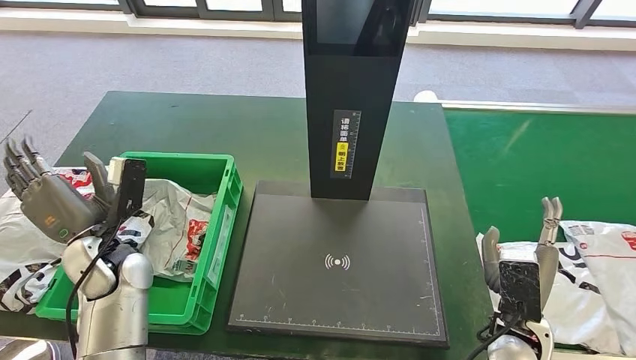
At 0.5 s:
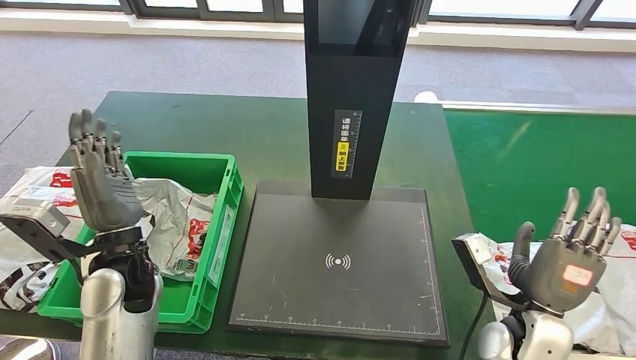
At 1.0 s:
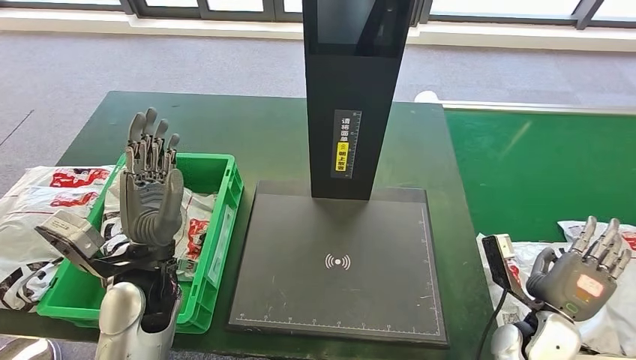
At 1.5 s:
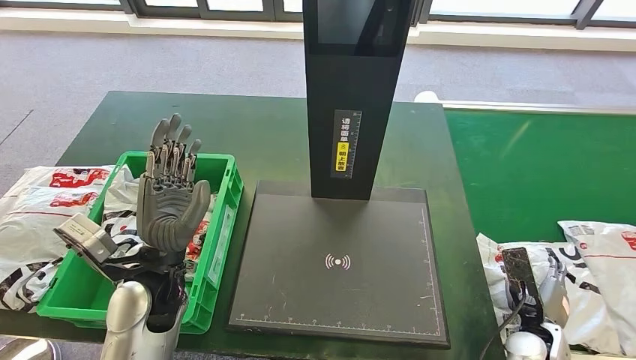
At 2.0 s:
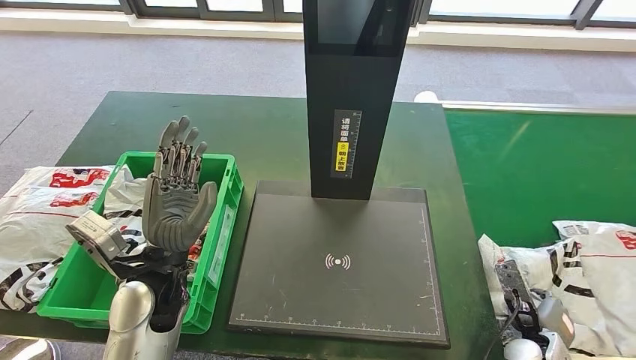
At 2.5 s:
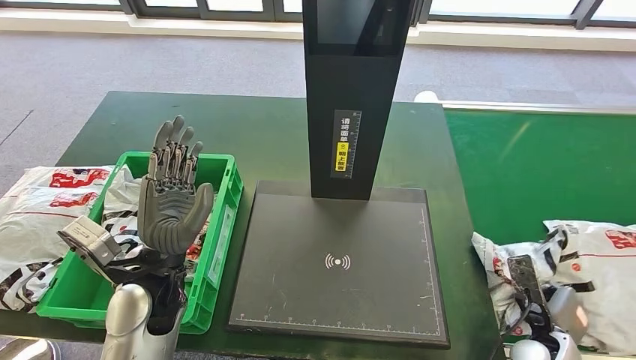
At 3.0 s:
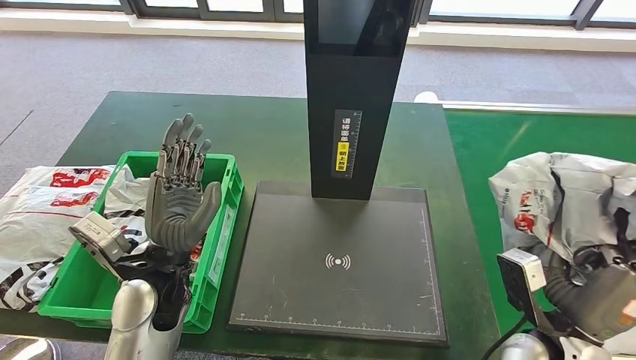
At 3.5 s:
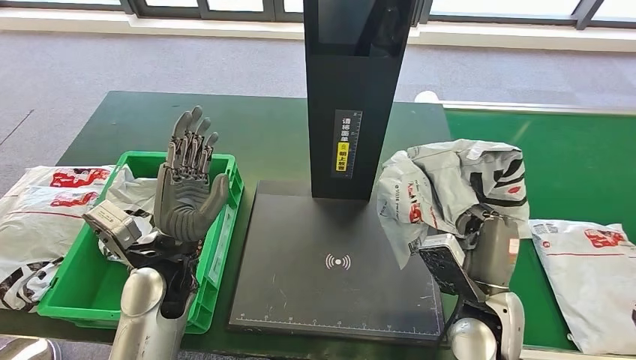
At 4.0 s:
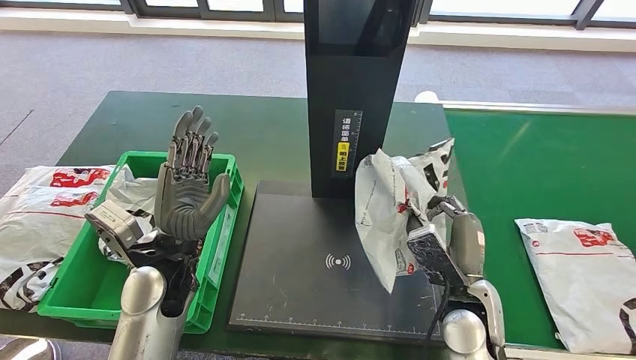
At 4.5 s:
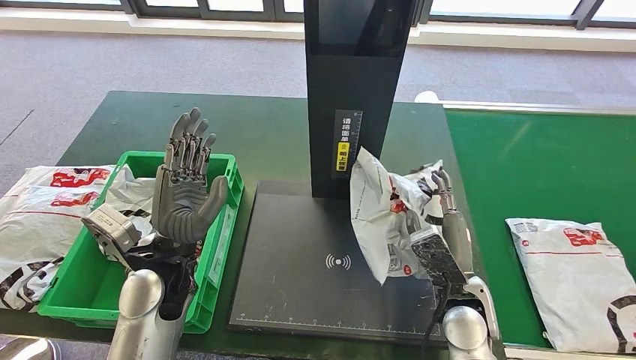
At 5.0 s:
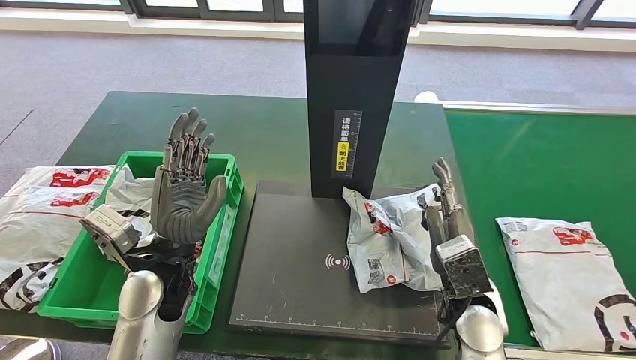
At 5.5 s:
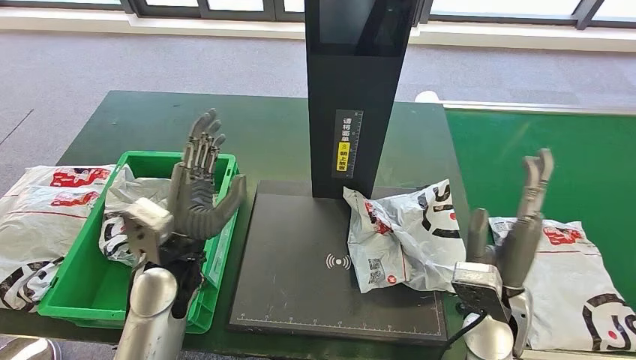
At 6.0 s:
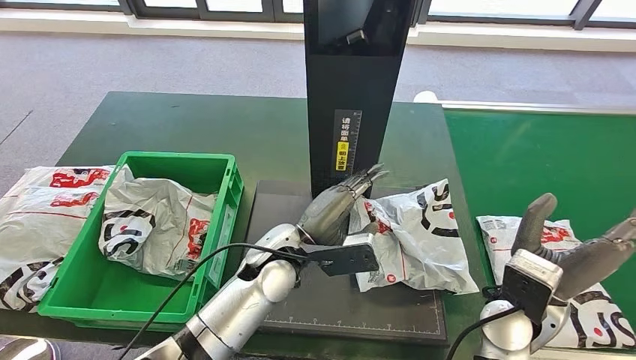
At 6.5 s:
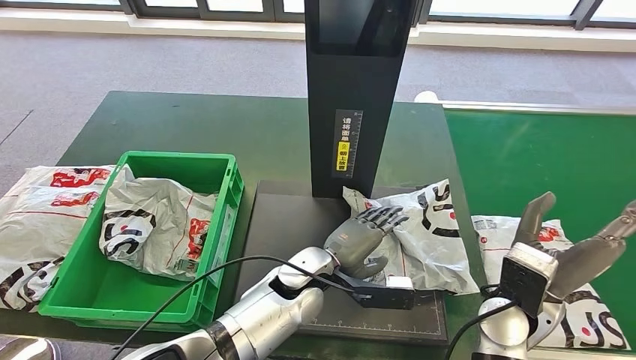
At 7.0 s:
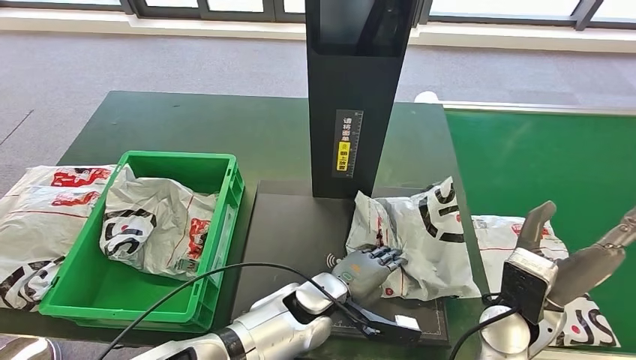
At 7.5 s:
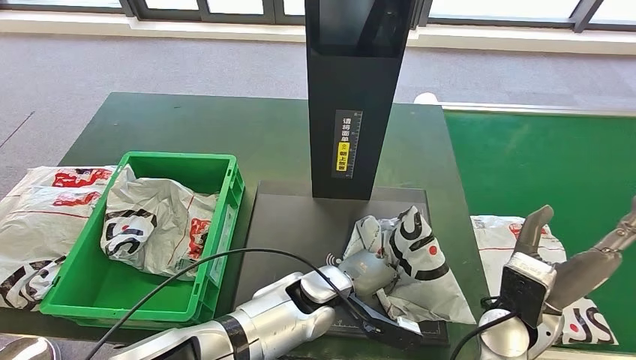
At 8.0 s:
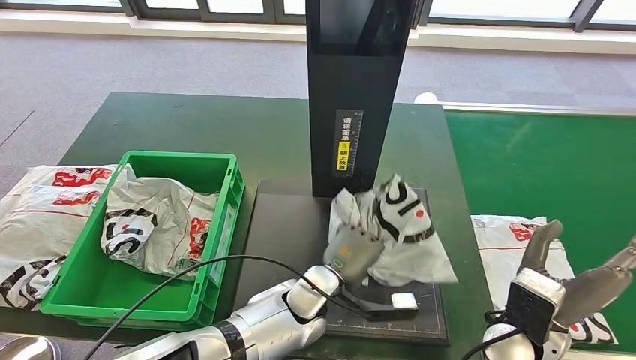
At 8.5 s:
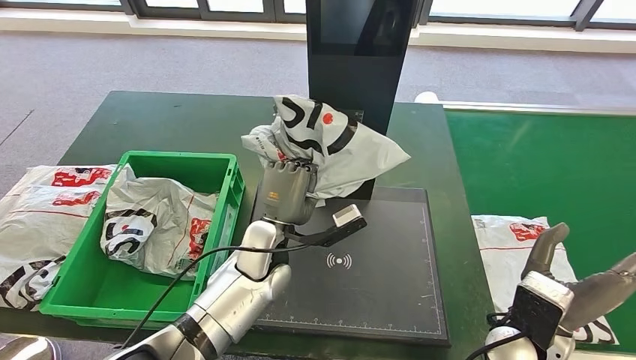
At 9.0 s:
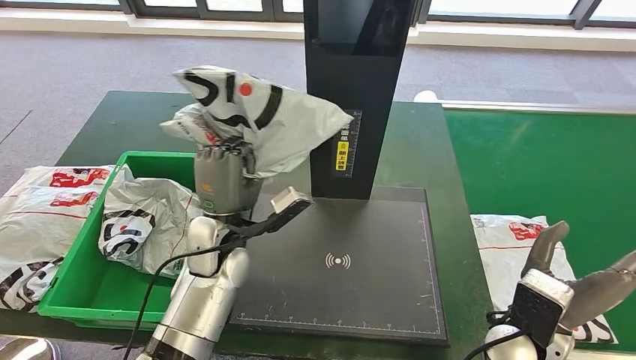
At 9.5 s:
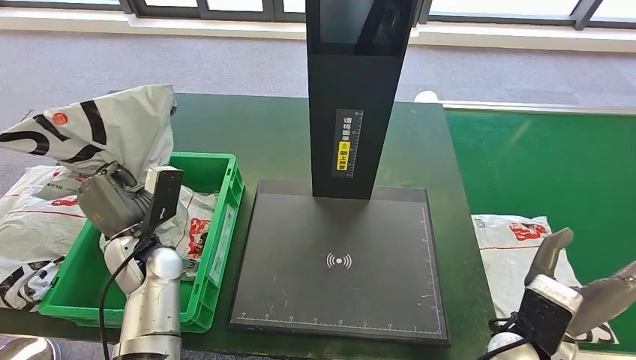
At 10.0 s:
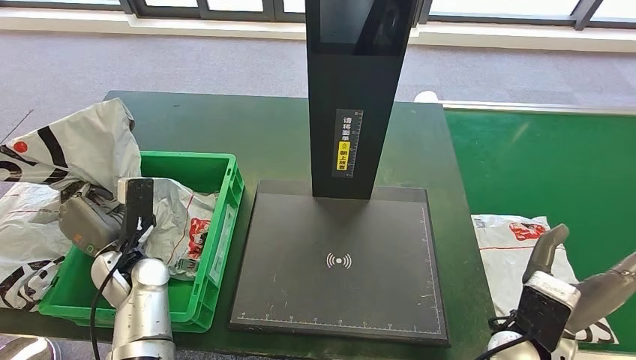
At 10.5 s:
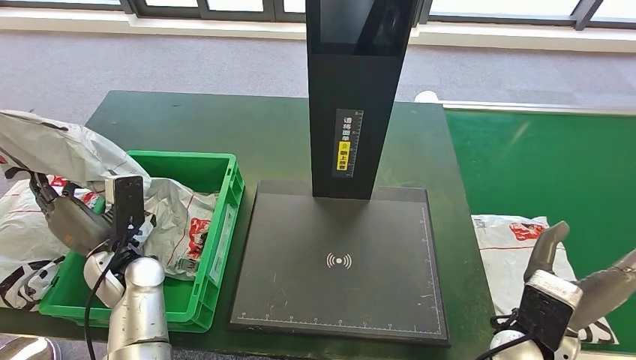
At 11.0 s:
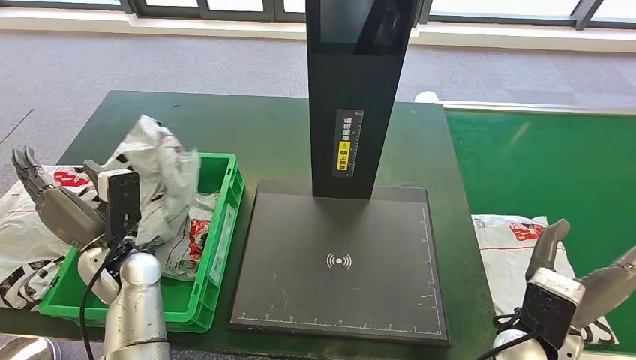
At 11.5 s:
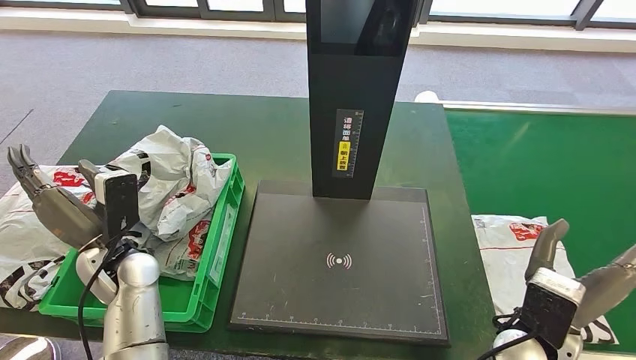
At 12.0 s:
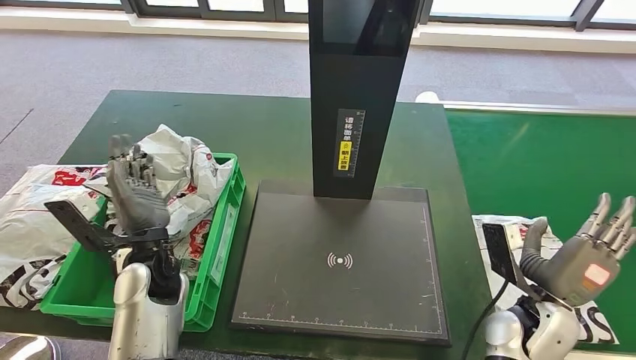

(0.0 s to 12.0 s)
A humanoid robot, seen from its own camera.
Step, 2.0 s - 4.0 s: Pick up the parcel from the conveyor belt.
Step, 4.5 s - 6.5 s: Place the parcel onto the inbound machine.
Step, 7.0 s - 9.0 s: Pick up the parcel from the inbound machine.
0.0 s - 2.0 s: The right hand heads downward and to the right, covering roughly 15 cm; the left hand travels to the right by roughly 10 cm.

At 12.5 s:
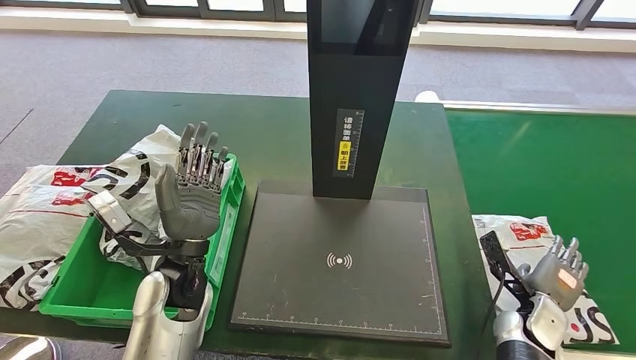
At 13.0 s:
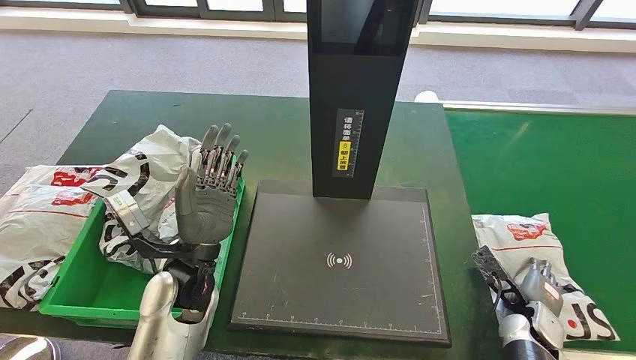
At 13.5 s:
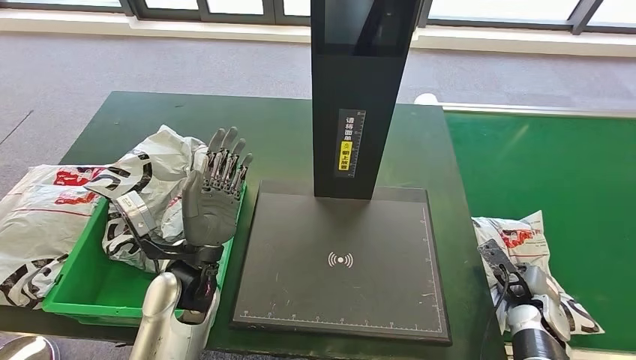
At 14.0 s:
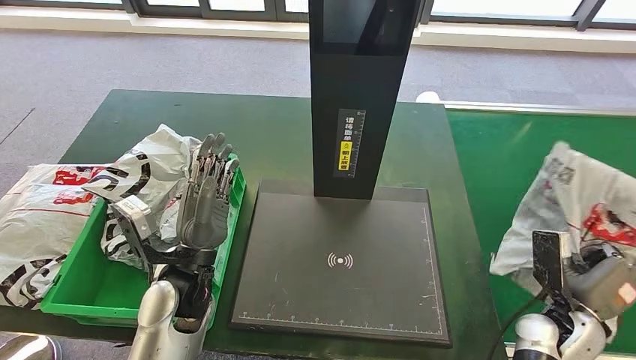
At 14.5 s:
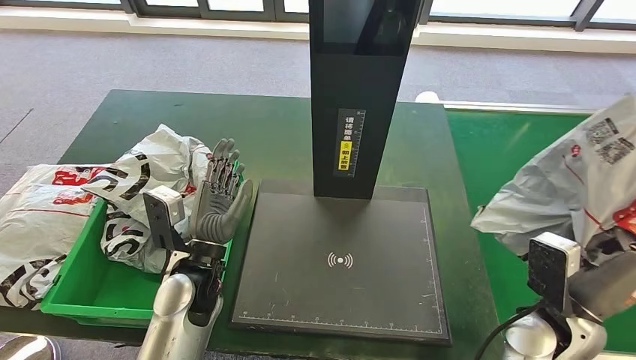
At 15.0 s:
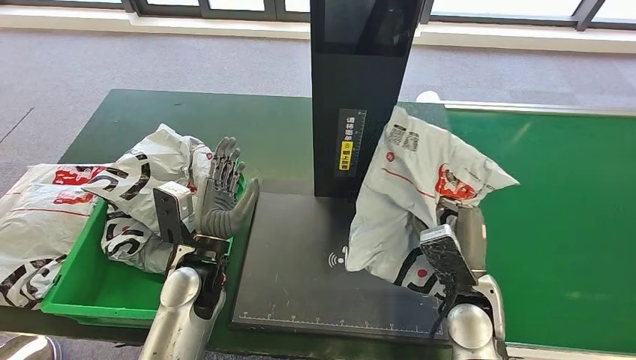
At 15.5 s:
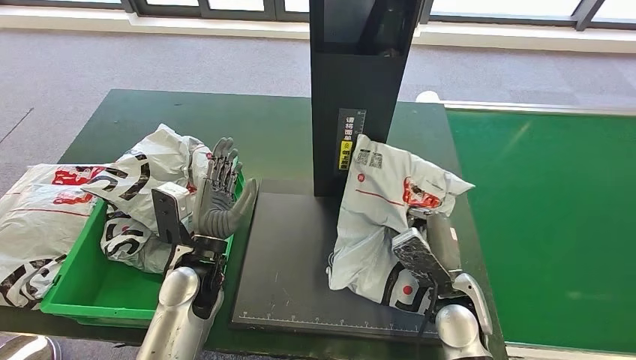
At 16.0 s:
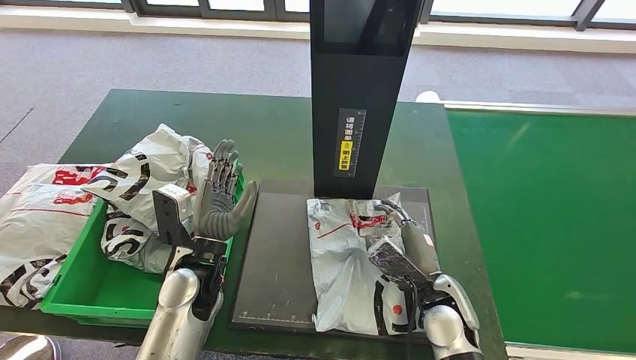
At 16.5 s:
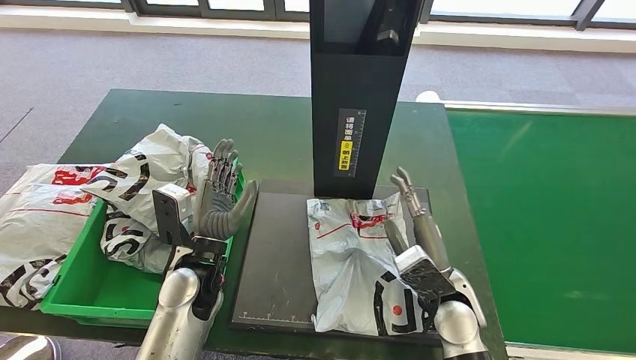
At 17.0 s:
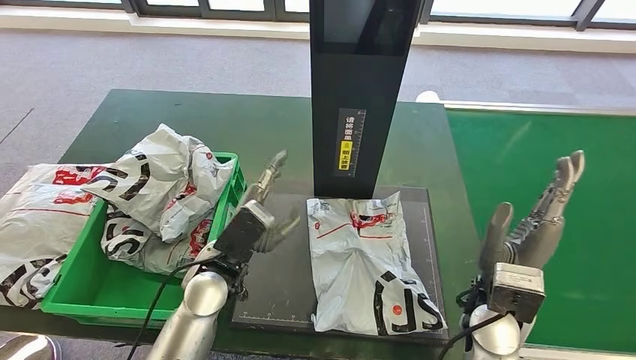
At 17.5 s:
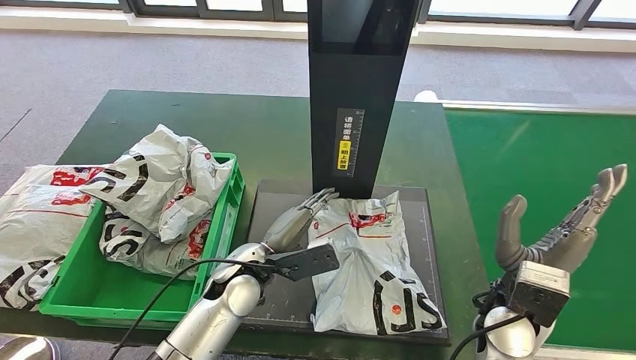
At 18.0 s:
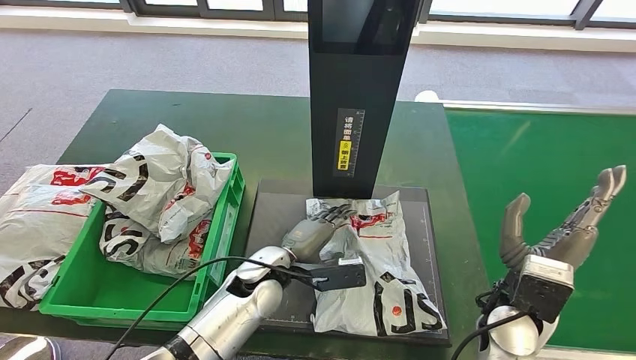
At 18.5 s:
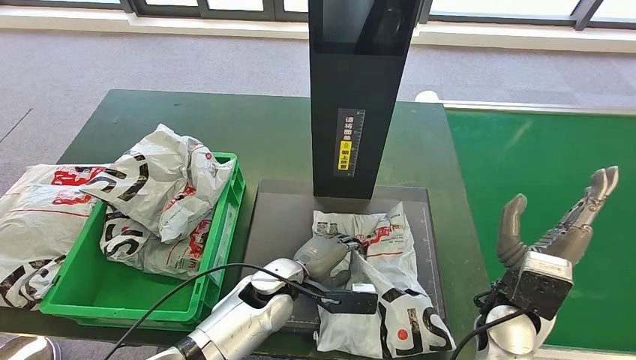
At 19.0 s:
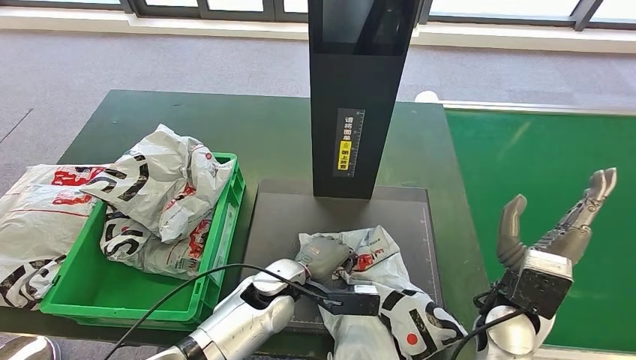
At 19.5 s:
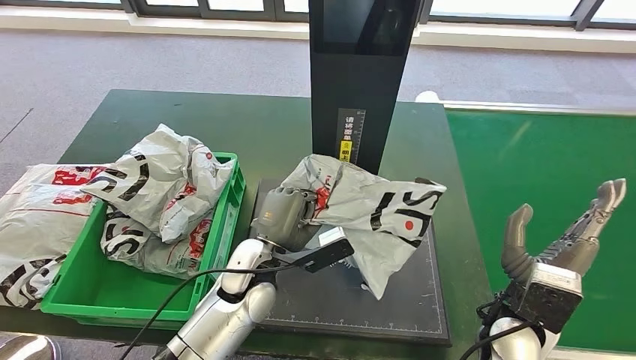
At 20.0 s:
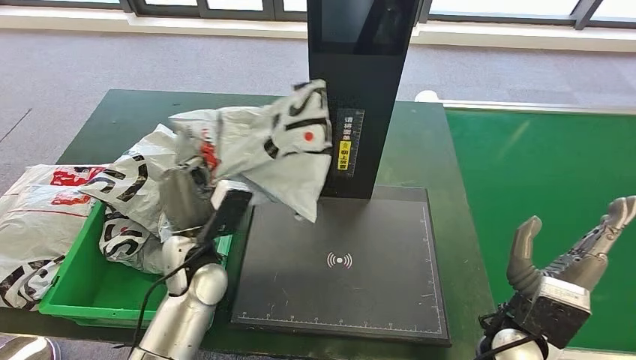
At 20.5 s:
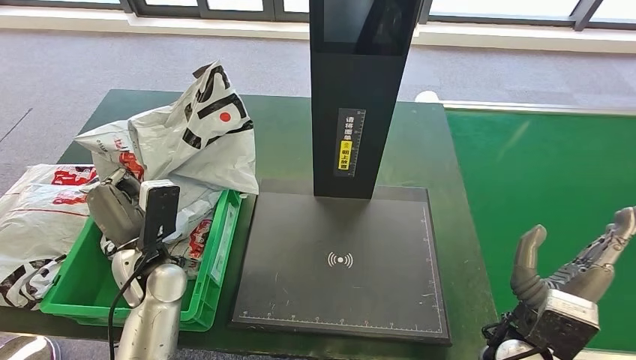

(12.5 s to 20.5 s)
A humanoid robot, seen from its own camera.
Step, 13.0 s - 15.0 s: Pick up the parcel from the conveyor belt.
Step, 15.5 s - 17.5 s: Place the parcel onto the inbound machine.
Step, 18.5 s - 20.5 s: Pick up the parcel from the inbound machine.
